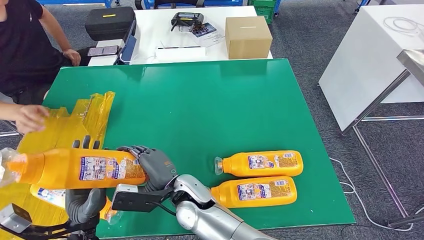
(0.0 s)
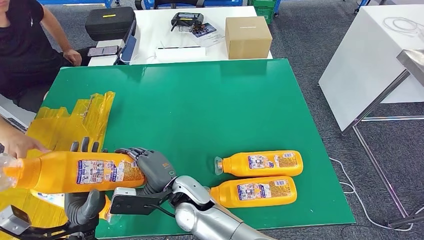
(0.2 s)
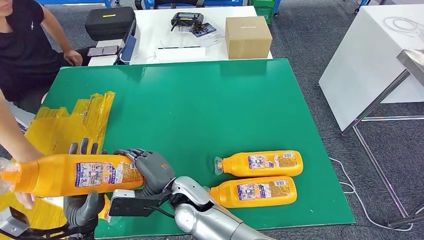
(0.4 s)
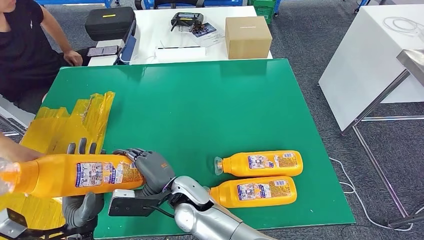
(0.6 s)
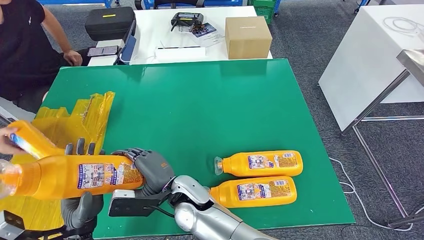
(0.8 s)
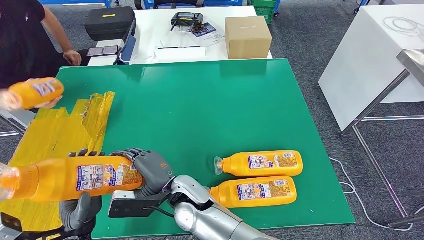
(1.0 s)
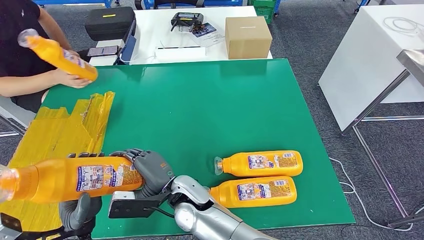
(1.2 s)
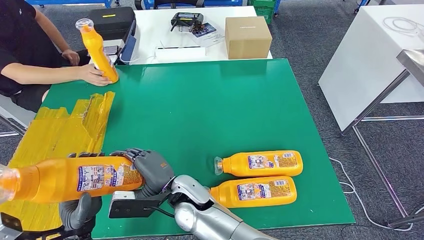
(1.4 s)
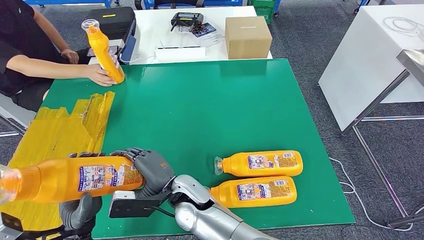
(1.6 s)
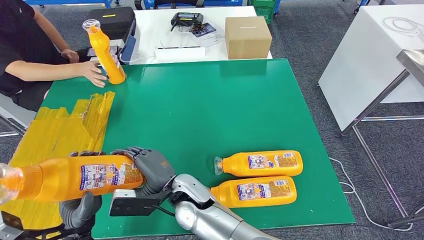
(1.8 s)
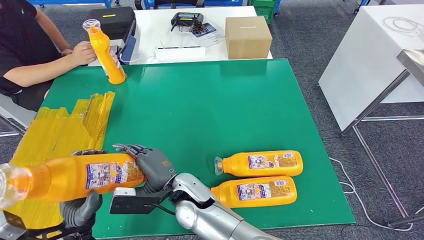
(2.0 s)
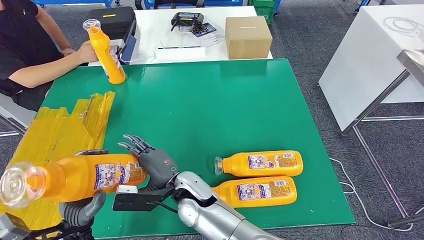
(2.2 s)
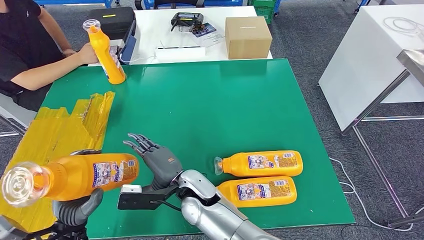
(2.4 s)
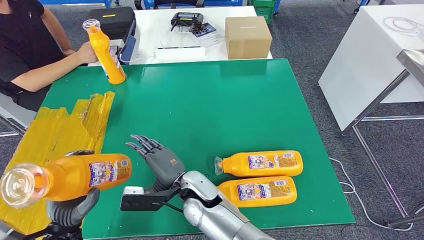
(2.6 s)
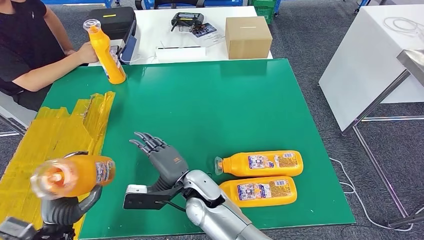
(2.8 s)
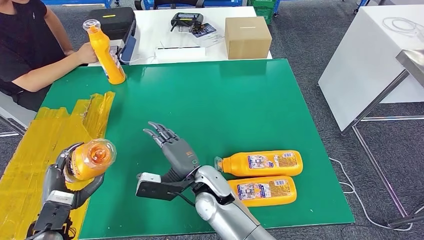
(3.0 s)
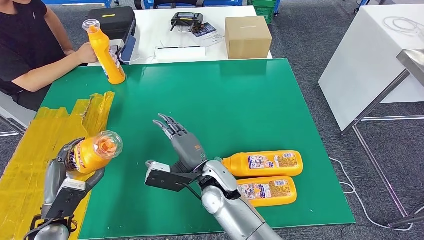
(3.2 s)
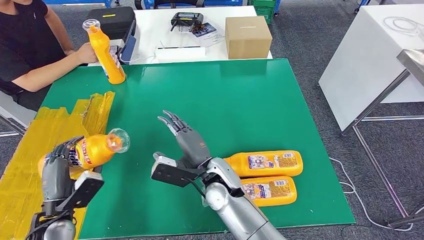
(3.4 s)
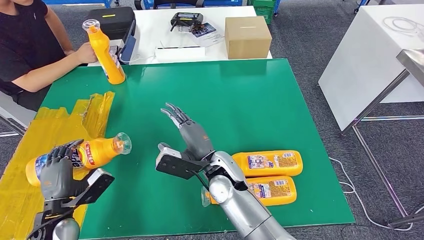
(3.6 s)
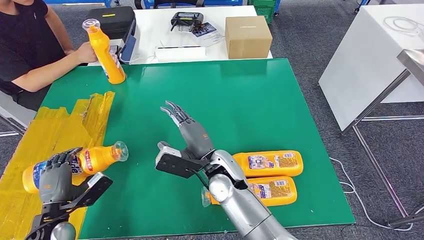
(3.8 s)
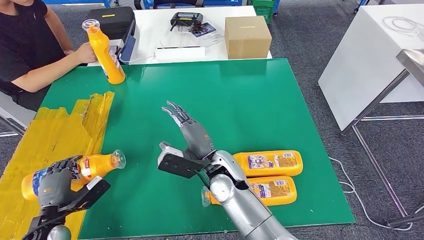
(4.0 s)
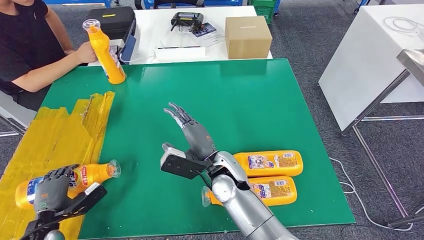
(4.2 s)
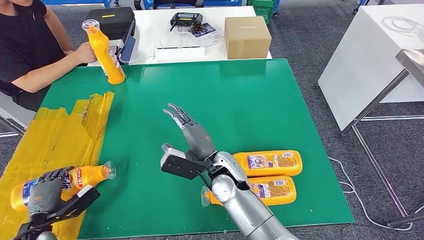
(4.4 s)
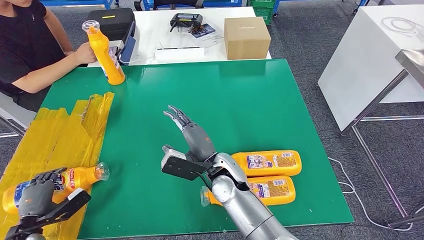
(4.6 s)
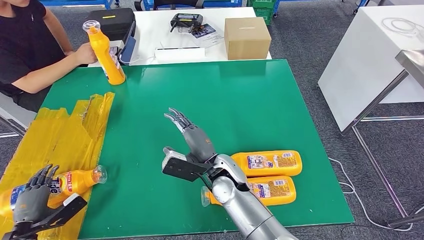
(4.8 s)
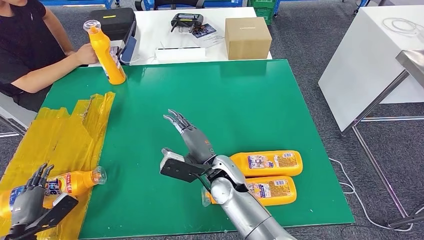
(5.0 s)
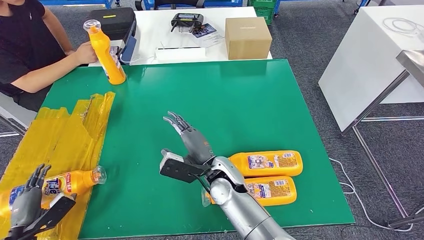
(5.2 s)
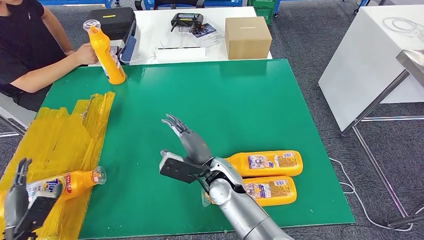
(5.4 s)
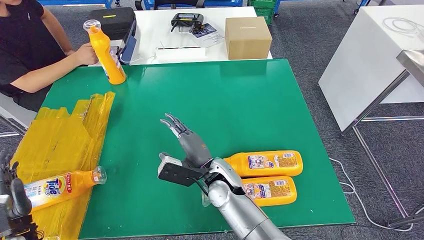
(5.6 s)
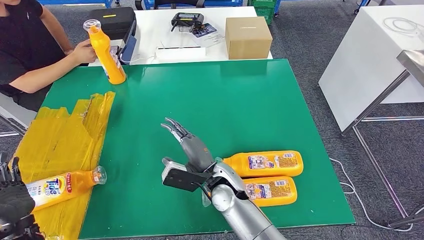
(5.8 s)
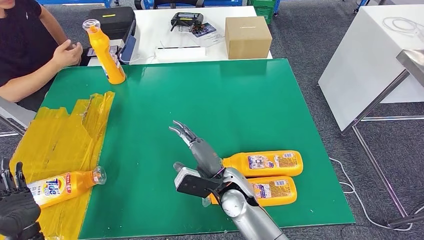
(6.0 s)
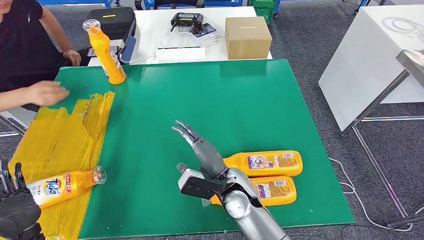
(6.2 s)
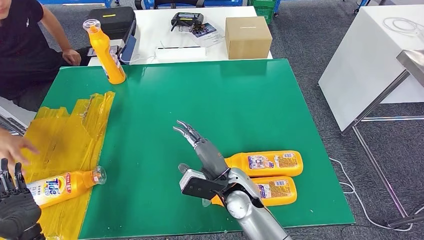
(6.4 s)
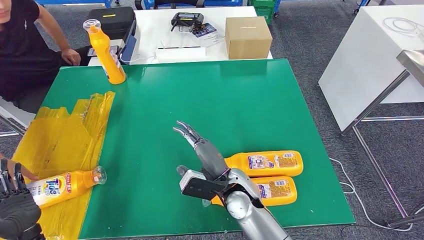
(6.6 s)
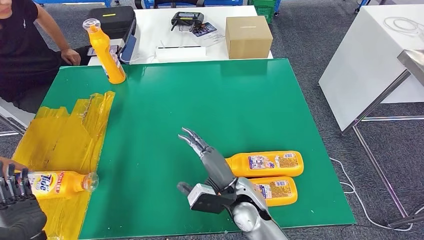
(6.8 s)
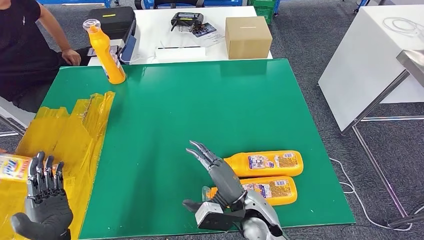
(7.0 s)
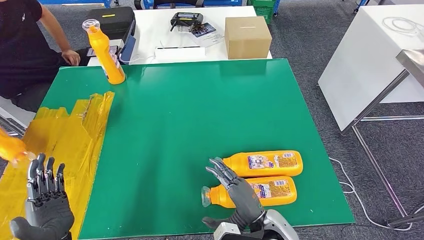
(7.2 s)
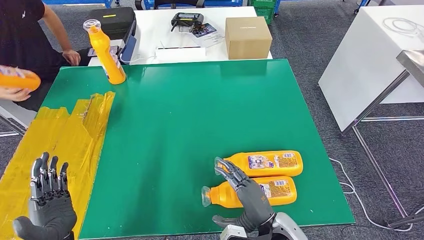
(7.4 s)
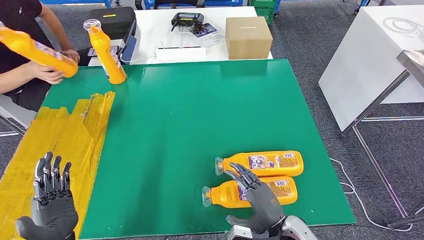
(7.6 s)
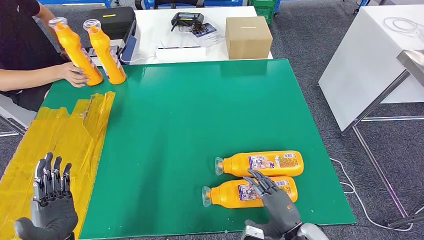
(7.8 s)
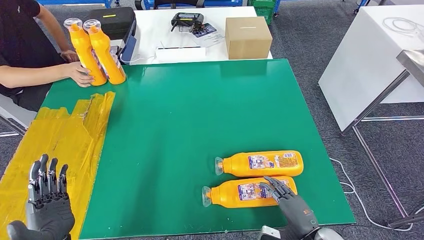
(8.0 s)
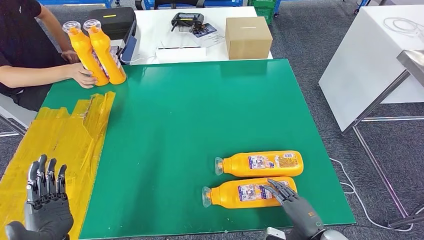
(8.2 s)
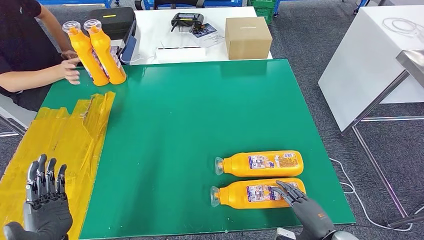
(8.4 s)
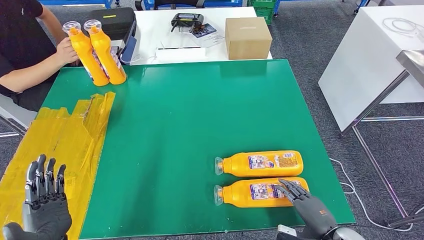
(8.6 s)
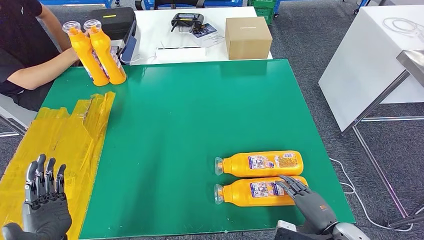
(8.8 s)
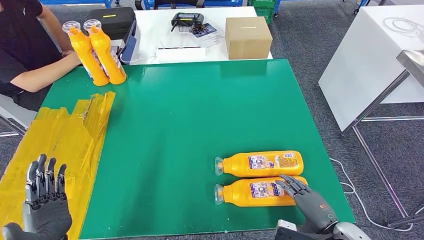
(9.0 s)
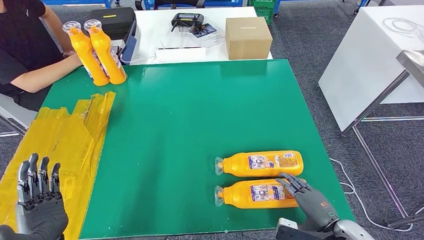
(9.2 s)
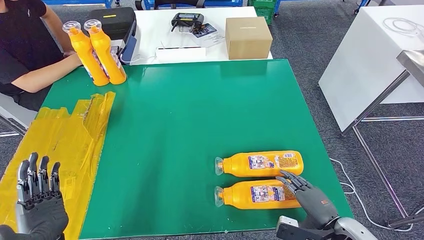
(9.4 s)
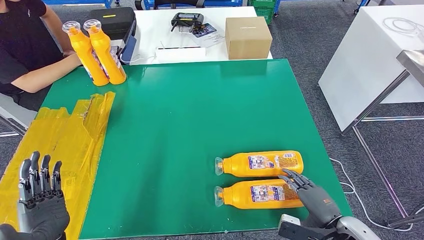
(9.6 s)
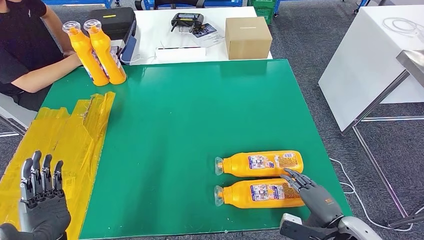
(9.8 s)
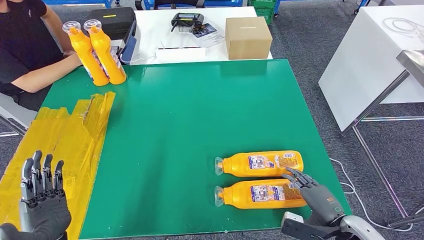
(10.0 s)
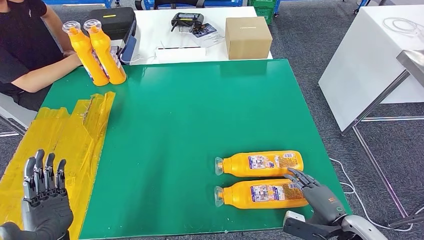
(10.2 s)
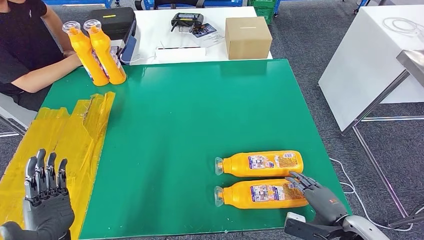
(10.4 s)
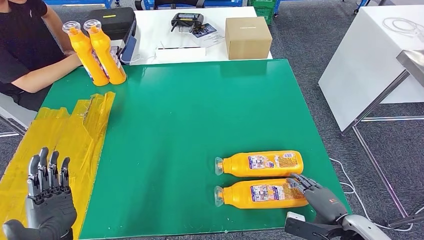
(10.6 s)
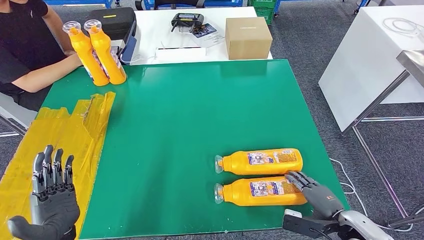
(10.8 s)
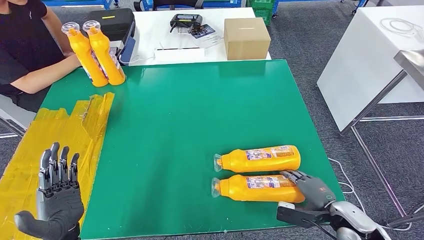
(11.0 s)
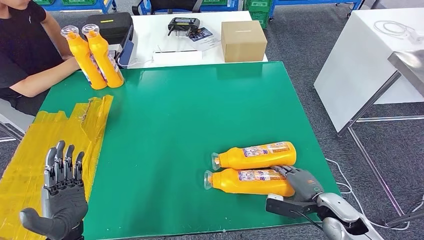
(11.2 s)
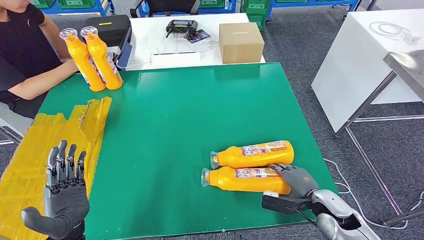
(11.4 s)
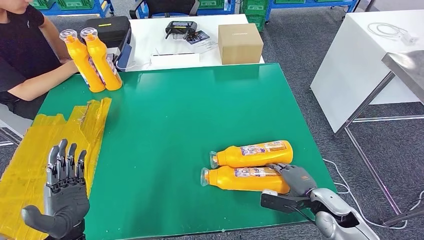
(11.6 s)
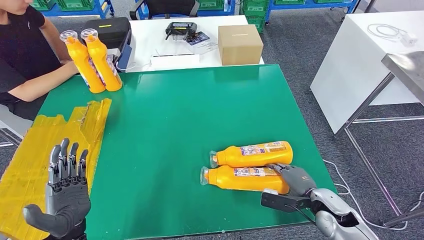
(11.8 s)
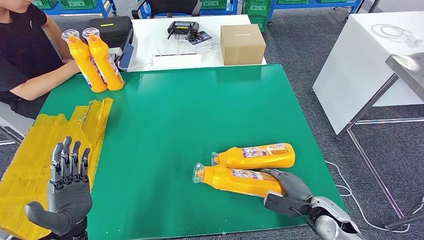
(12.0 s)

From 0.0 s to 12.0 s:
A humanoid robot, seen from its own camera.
Step, from 0.6 s to 7.4 s: Flip the bottle to face forward.
From 0.0 s to 1.6 s: The hands move only a little.
From 1.6 s to 3.0 s: The right hand heads to the right, covering roughly 5 cm. The left hand travels to the left by approximately 5 cm.
From 3.0 s to 4.4 s: The left hand goes roughly 15 cm to the left and downward; the right hand moves roughly 5 cm.
From 4.4 s to 6.0 s: The left hand travels upward by about 5 cm.
From 6.0 s to 7.6 s: The left hand travels to the right by about 10 cm. The right hand shifts roughly 20 cm to the right and backward.
From 7.6 s to 9.0 s: The right hand moves to the right, approximately 15 cm.
From 9.0 s to 10.4 s: The hands make only small movements.

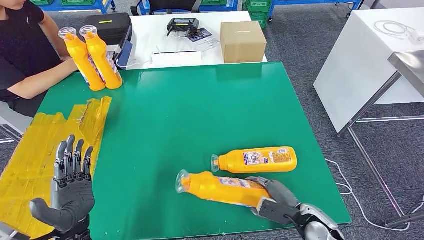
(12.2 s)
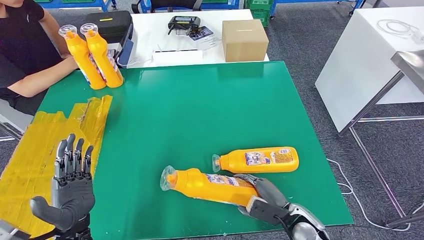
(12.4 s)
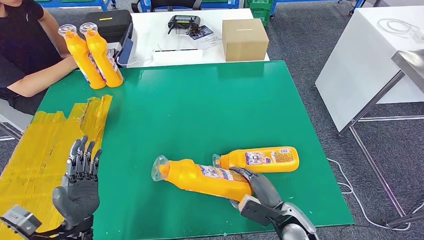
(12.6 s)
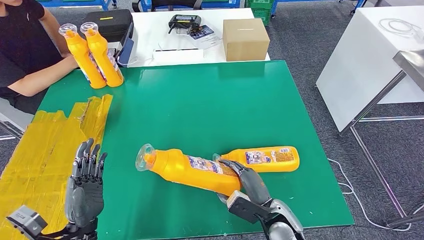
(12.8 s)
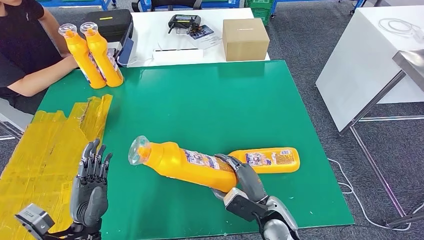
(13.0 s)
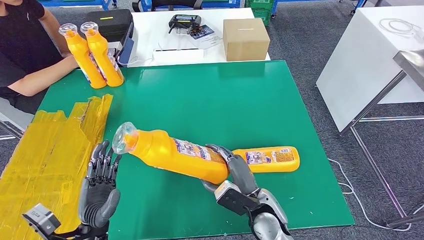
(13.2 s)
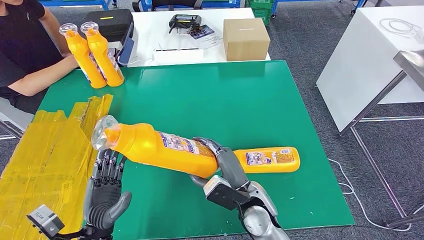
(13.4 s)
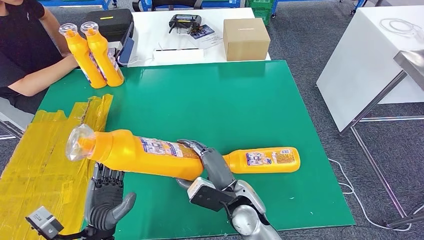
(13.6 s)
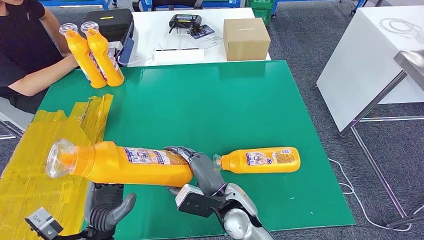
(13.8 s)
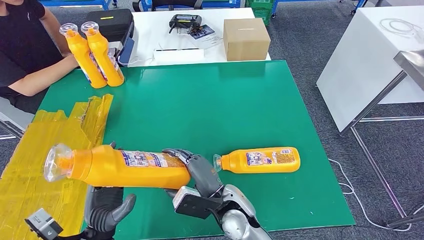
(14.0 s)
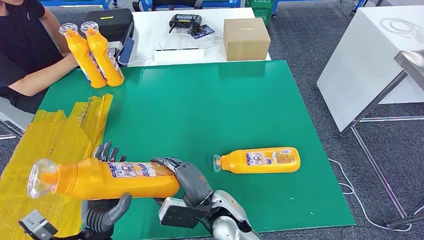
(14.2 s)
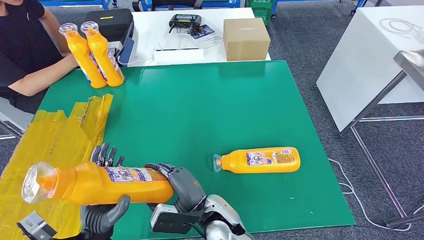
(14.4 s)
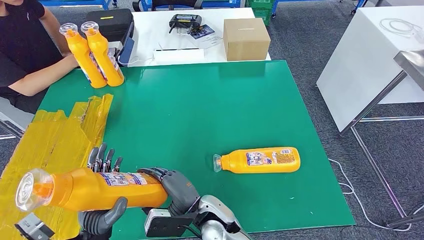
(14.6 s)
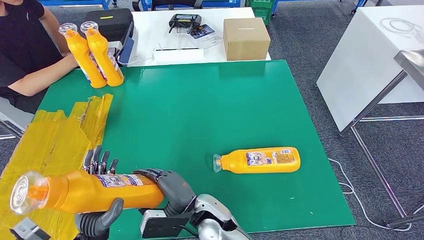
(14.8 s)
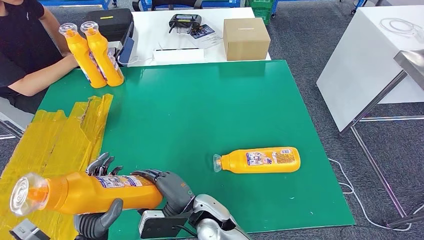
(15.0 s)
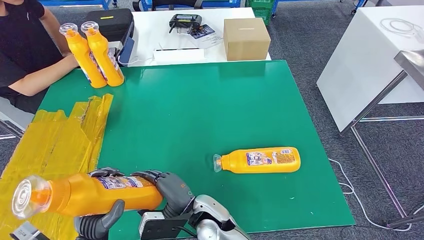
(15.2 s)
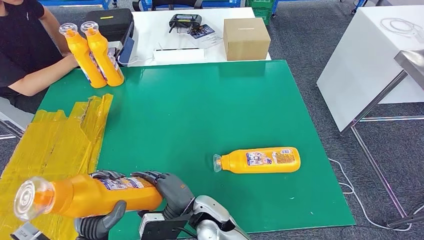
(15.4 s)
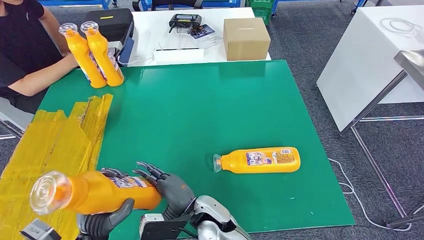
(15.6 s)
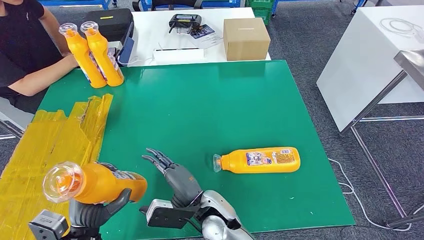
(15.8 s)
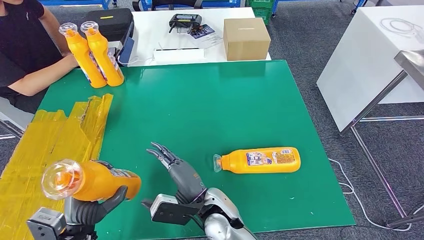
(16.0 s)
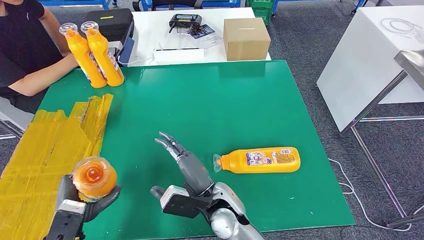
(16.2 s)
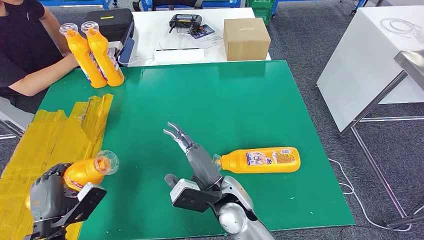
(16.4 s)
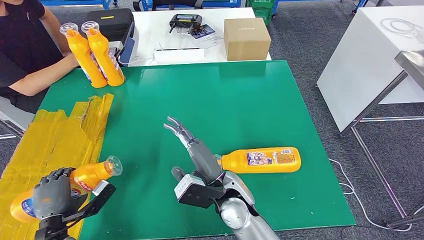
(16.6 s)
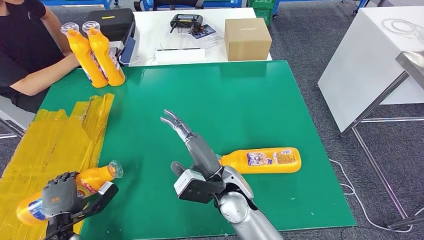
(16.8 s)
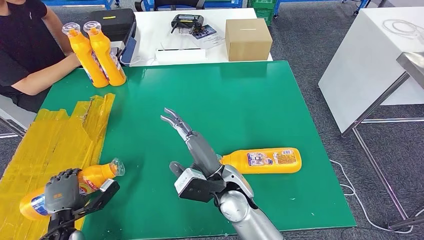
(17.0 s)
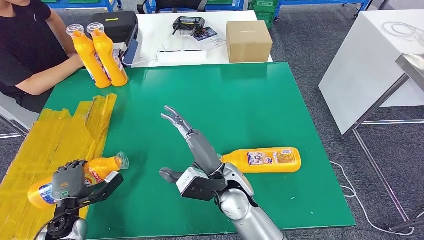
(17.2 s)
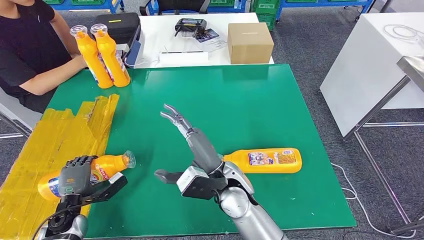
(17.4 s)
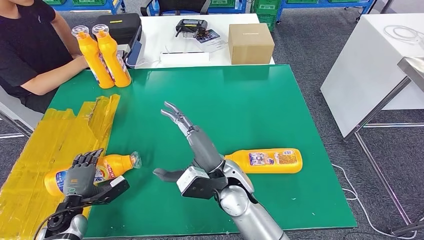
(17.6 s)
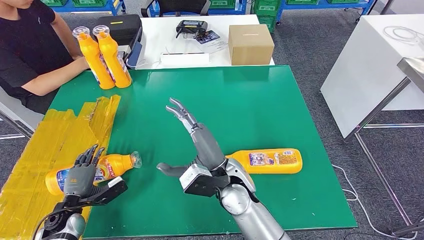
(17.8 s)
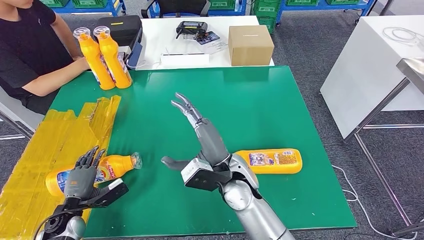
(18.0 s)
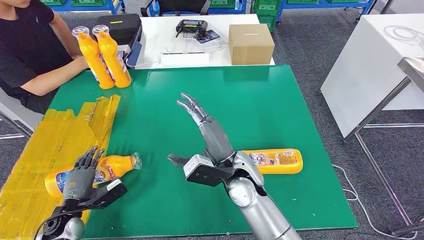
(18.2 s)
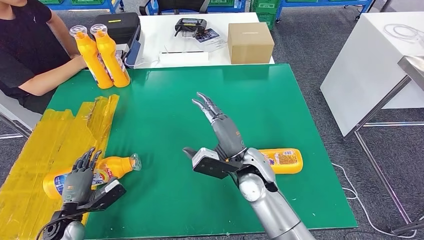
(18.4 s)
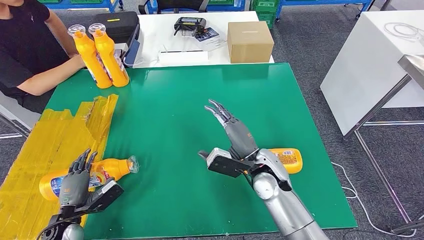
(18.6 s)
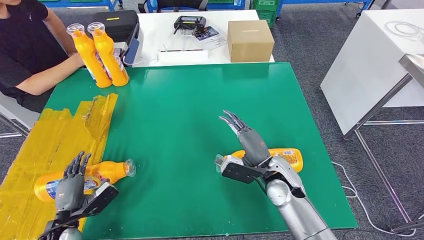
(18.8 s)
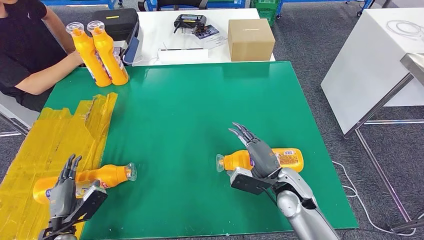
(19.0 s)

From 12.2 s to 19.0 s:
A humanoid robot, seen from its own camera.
From 13.6 s to 15.0 s: The right hand heads to the left, covering roughly 10 cm.
From 15.0 s to 16.2 s: The right hand ends up approximately 5 cm from where it was. Meanwhile the left hand is displaced to the left by some 5 cm.
